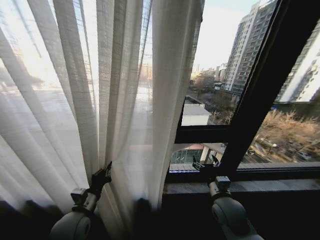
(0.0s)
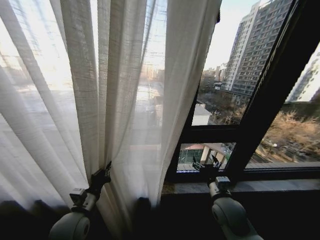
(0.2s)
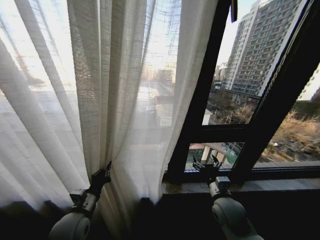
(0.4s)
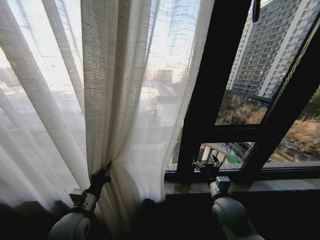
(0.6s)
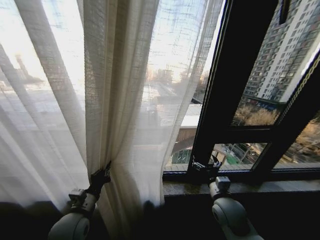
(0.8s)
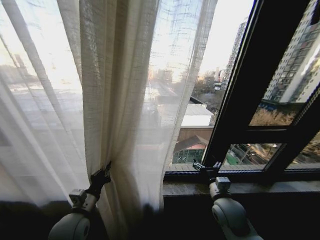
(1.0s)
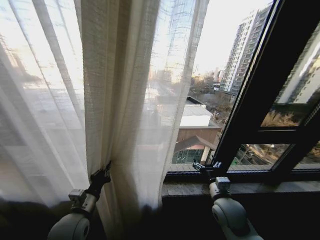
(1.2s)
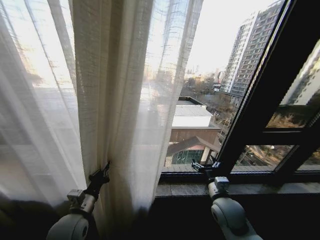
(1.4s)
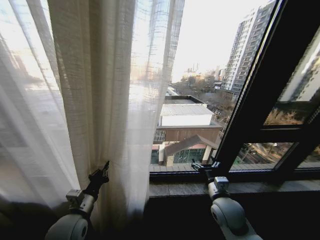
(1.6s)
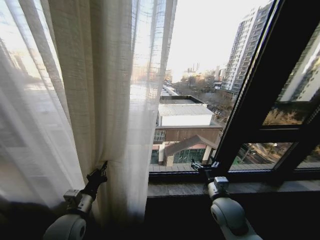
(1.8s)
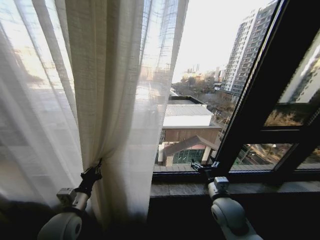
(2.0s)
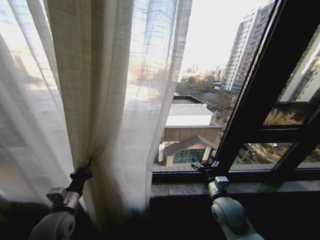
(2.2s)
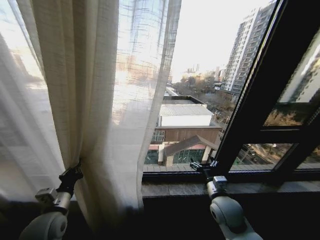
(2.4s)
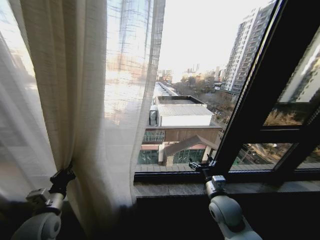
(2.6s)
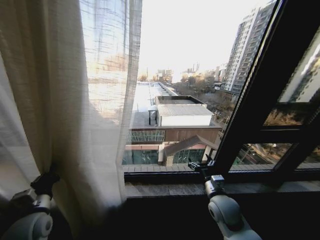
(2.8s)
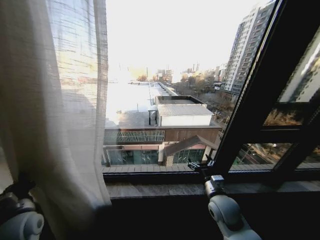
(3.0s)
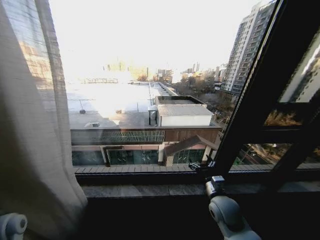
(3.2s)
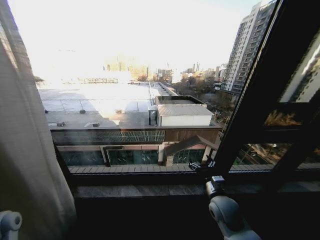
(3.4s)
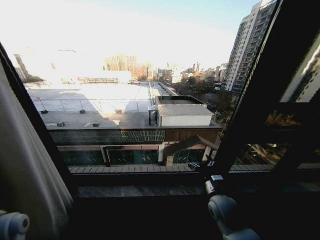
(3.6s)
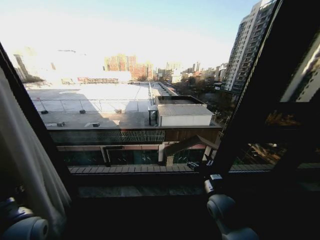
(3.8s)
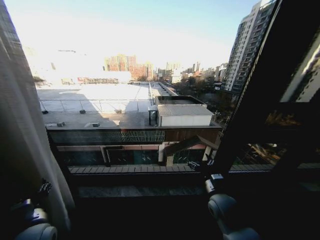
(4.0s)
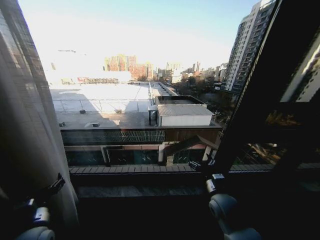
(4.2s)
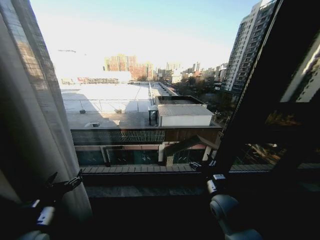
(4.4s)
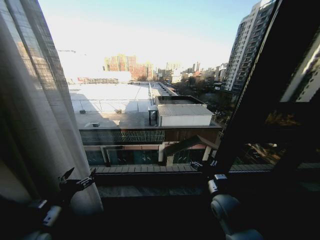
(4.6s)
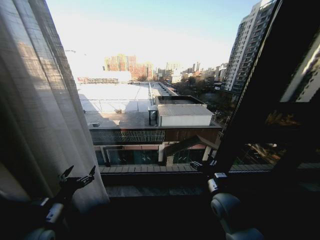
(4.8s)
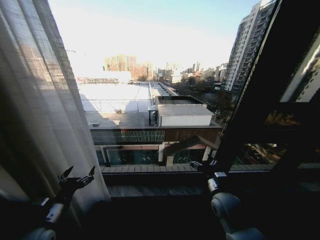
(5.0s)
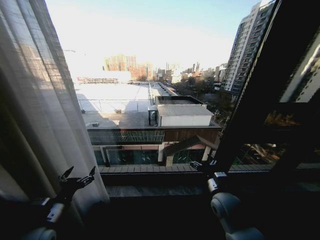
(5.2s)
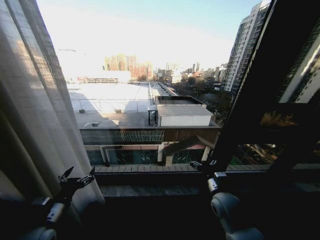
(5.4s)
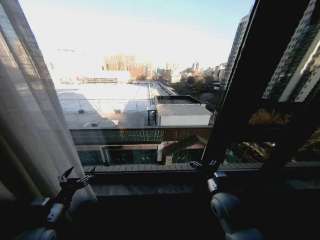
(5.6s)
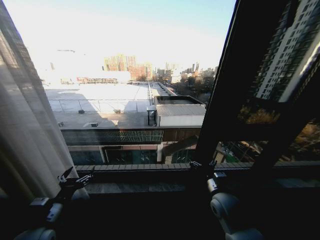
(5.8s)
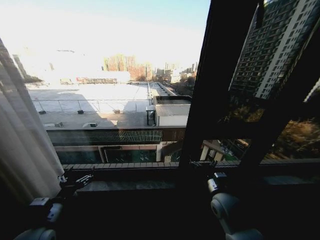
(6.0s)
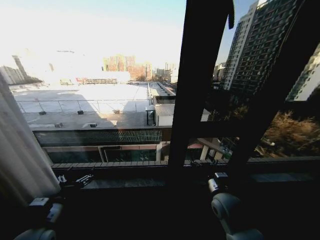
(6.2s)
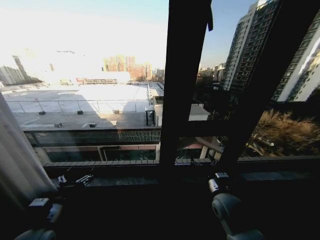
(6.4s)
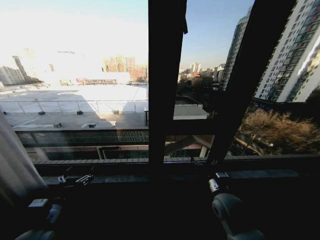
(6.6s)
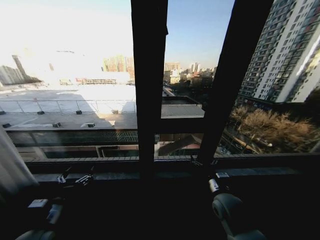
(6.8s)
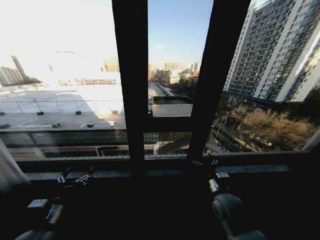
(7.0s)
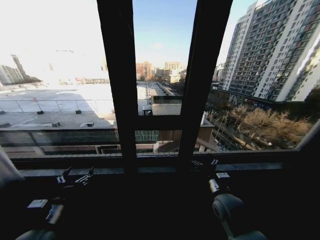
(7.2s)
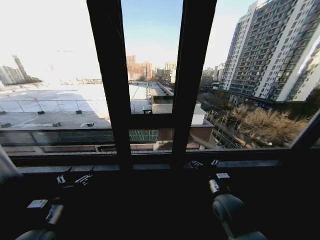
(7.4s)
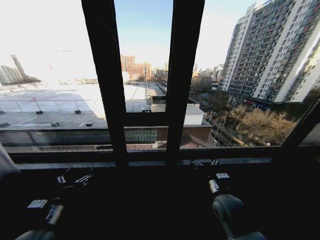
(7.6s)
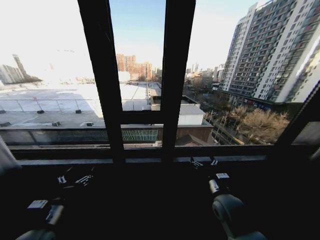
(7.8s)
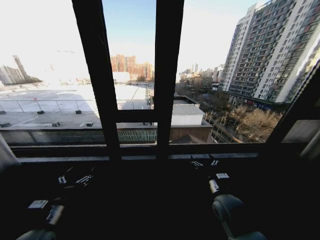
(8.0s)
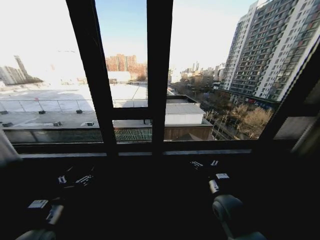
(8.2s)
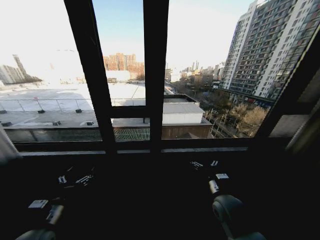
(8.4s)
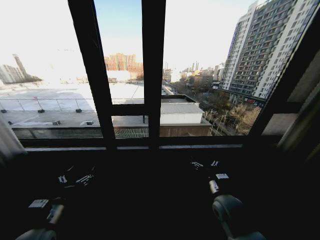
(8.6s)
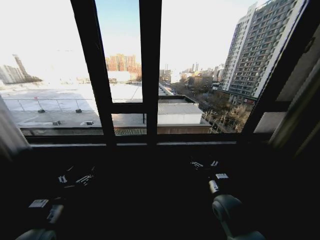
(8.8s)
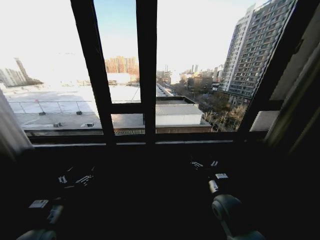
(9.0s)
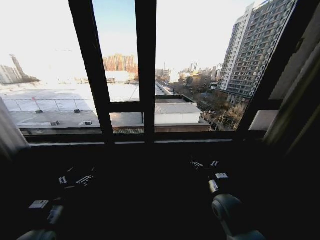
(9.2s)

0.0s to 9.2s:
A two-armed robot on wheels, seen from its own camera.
Task of the whole recording: Open the curtains by pulling them apart, changing their state from closed to fully open.
1.6s to 3.0s: The left gripper heads to the left, covering roughly 15 cm.
3.0s to 4.6s: The left gripper goes roughly 10 cm to the right, and opens its fingers.

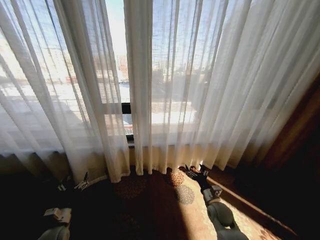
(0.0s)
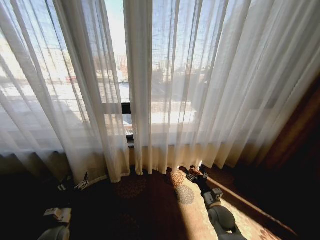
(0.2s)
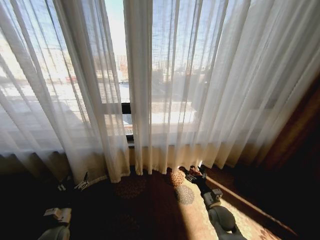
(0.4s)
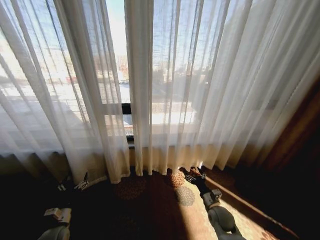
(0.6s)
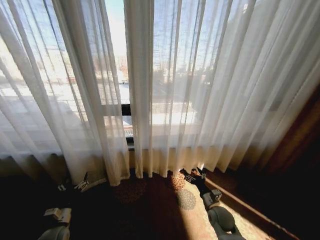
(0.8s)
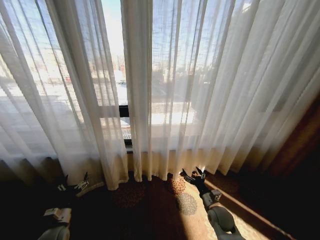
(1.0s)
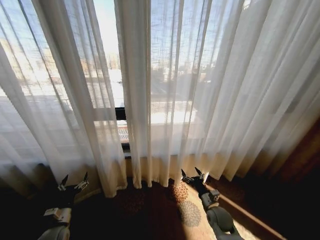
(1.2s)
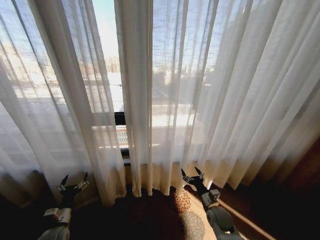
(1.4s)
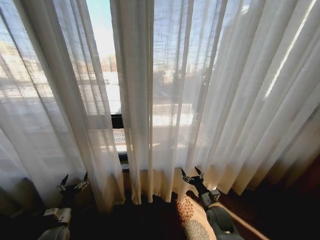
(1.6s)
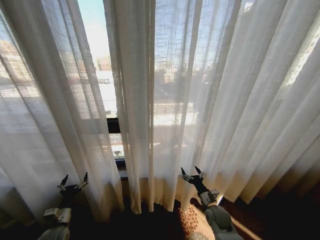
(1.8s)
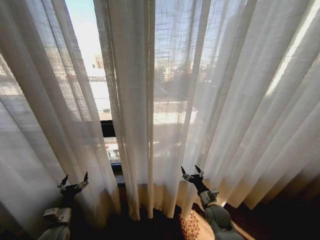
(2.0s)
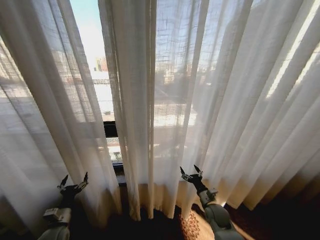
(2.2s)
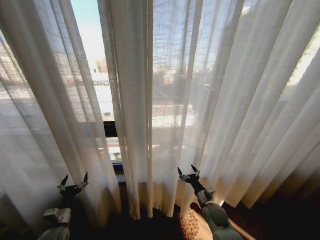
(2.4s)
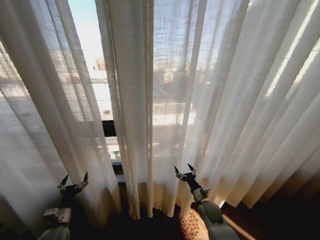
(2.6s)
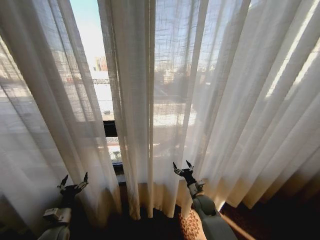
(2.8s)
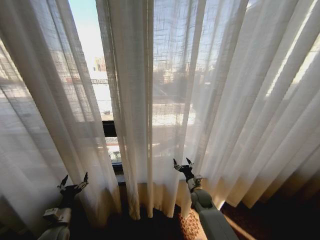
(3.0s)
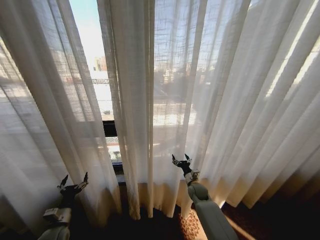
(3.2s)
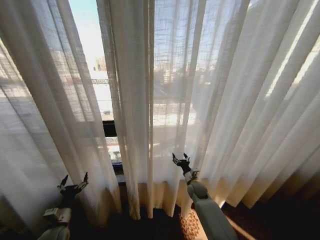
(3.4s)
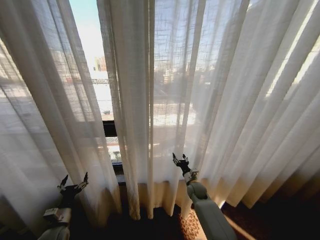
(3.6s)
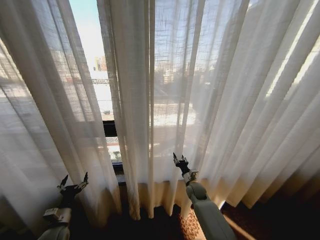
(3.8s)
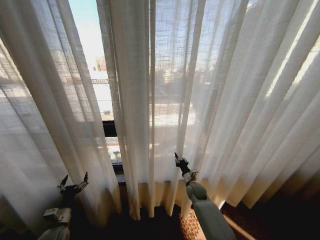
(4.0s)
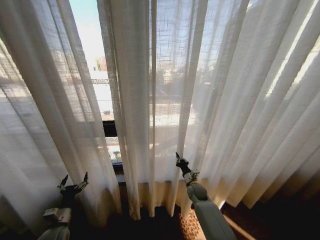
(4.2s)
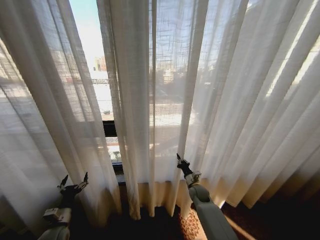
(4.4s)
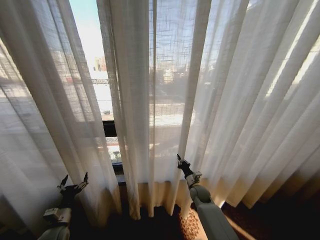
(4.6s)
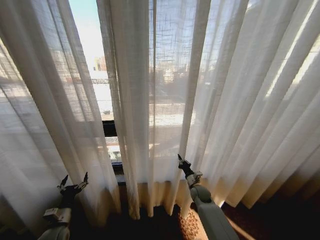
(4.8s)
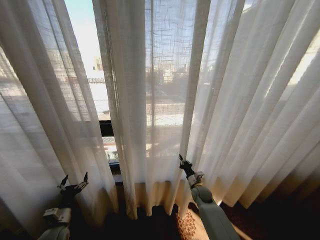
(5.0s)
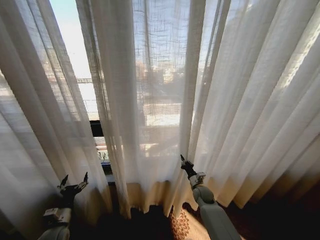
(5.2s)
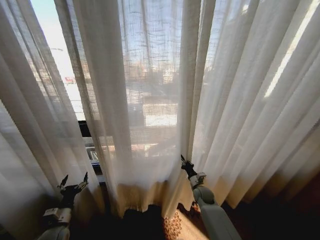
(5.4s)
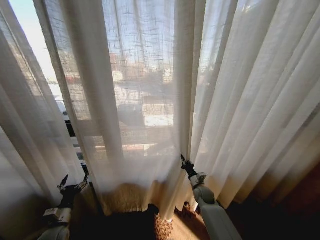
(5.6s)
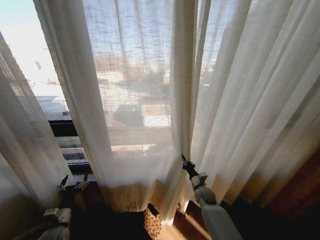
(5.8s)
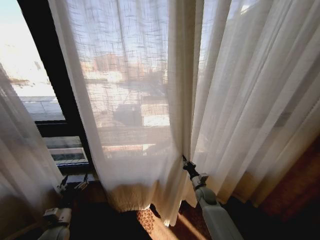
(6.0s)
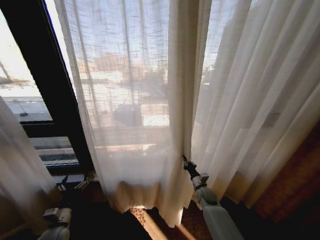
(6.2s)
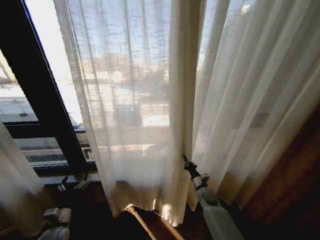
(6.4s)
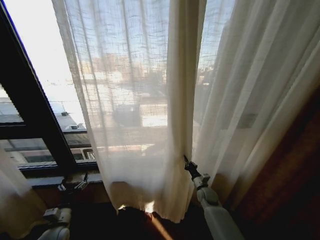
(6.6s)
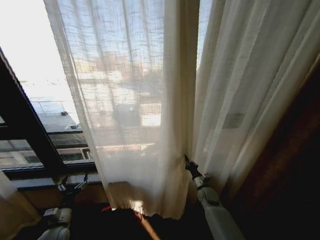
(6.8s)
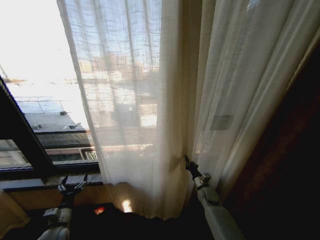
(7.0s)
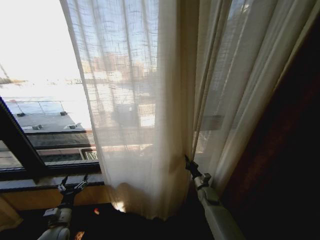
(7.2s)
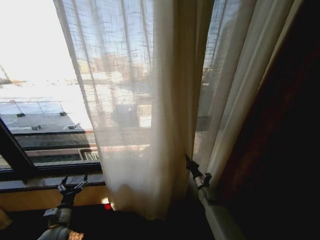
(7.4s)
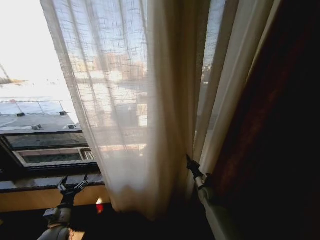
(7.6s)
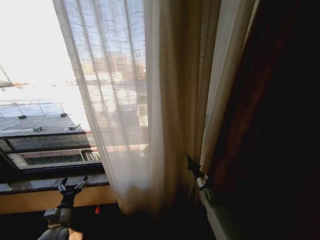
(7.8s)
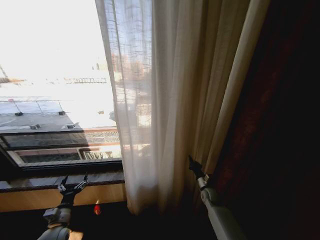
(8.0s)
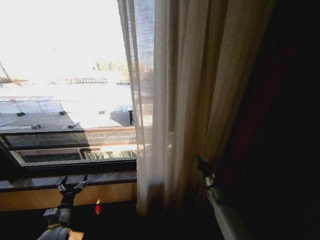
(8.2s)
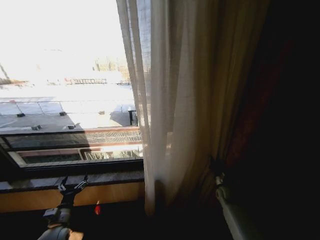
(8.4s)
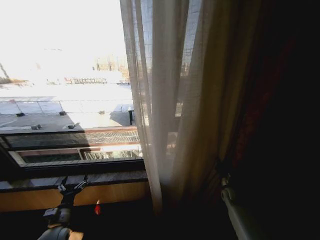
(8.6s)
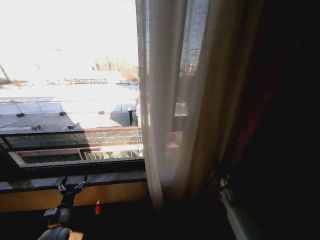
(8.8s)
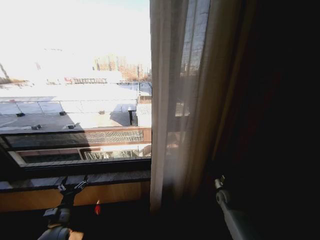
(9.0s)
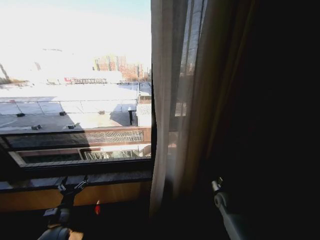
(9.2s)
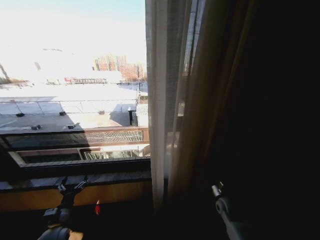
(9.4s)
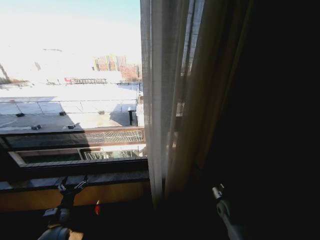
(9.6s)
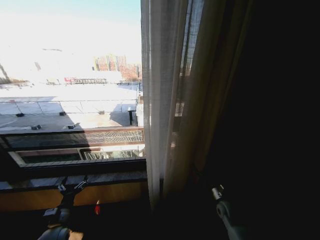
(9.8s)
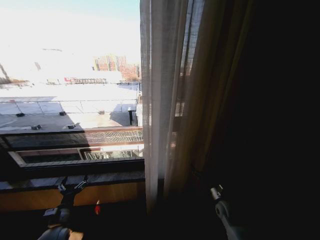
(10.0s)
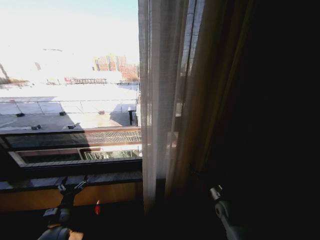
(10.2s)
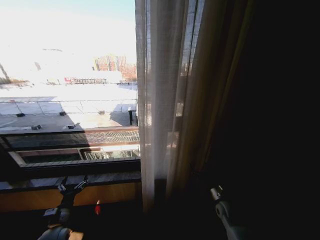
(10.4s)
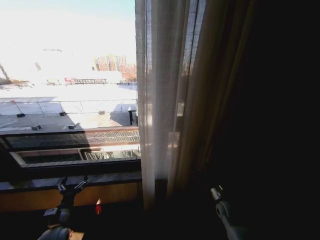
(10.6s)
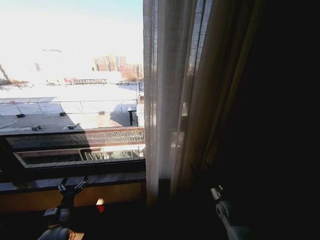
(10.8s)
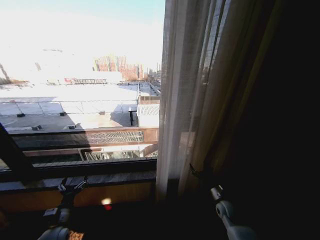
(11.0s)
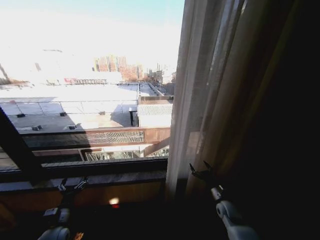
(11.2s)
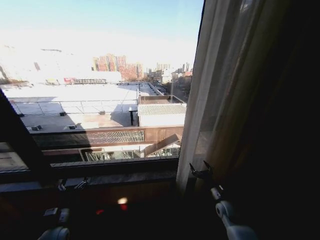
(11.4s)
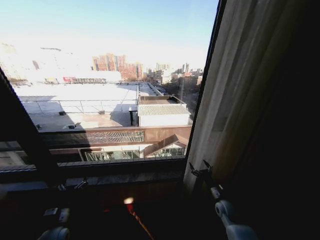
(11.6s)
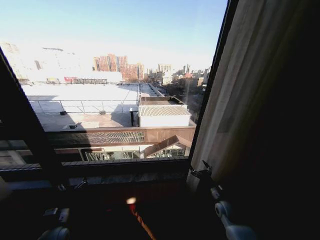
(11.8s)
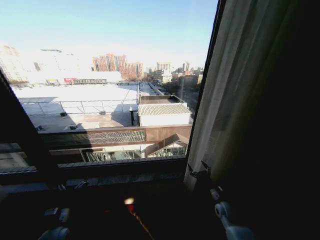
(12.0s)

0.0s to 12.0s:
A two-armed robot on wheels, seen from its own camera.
Task of the whole recording: Open the curtains by pulling them apart, changing their state from closed to fully open.
1.6s to 3.0s: The right gripper is displaced forward by approximately 10 cm.
3.0s to 4.4s: The right gripper closes.
7.6s to 9.0s: The right gripper heads to the right, covering some 10 cm.
9.0s to 10.4s: The right gripper is displaced backward by about 5 cm, and opens its fingers.

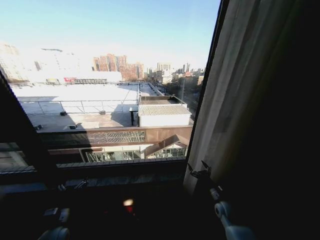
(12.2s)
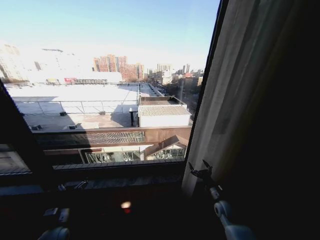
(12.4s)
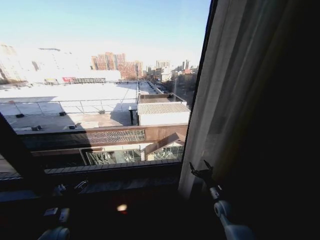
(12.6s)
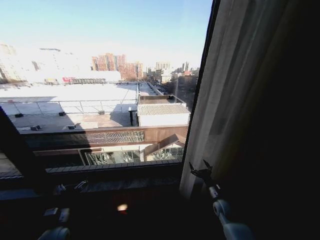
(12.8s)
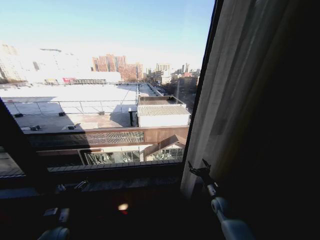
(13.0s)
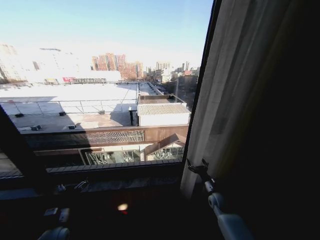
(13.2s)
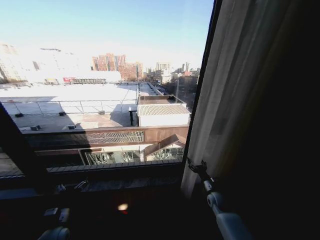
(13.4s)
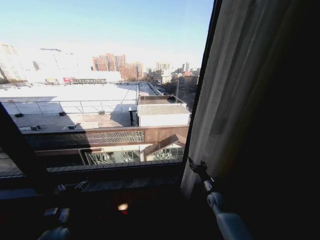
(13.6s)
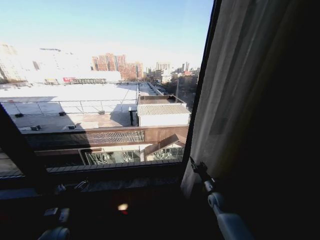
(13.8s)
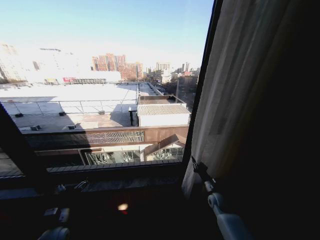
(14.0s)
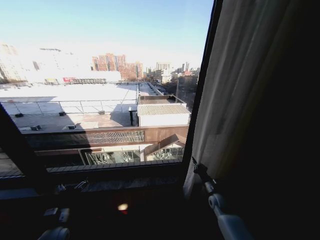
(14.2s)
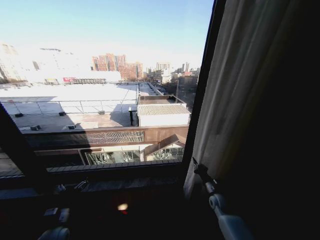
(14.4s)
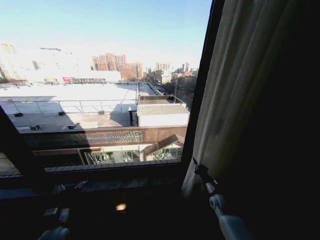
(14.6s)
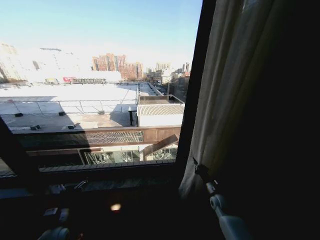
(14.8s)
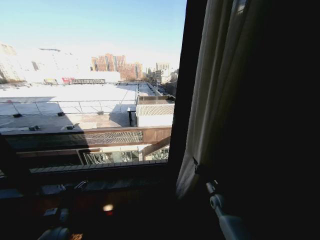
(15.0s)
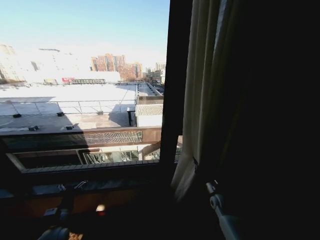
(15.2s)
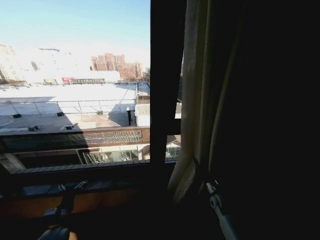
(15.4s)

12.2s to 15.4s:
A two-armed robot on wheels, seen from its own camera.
Task of the whole recording: Open the curtains by pulling them apart, changing their state from closed to fully open.
12.2s to 13.8s: The right gripper closes up.
13.8s to 15.4s: The right gripper closes its fingers.
